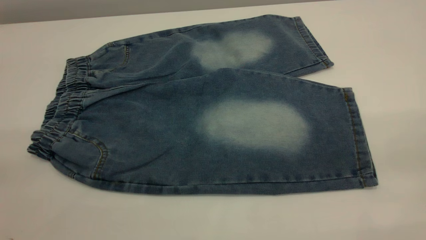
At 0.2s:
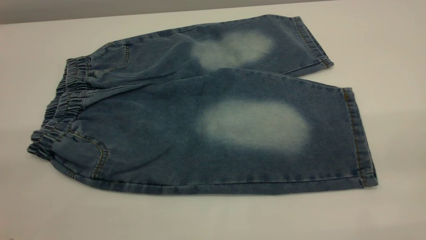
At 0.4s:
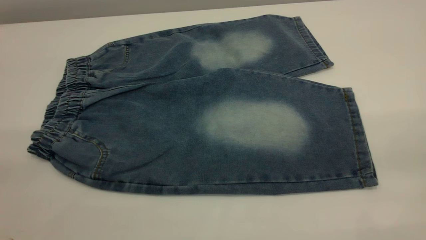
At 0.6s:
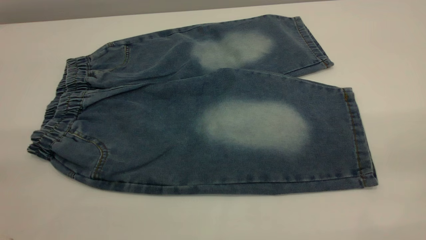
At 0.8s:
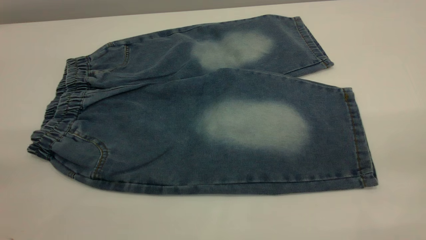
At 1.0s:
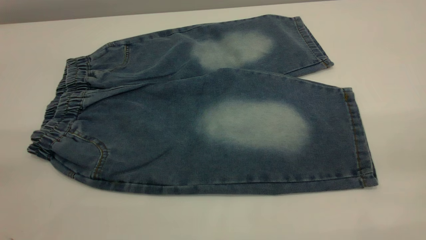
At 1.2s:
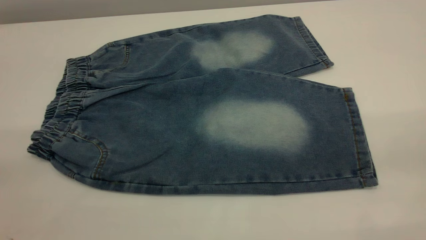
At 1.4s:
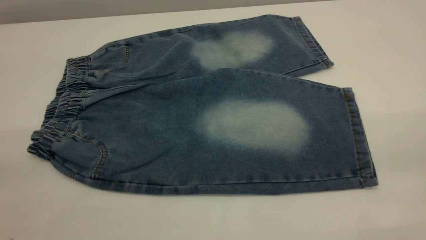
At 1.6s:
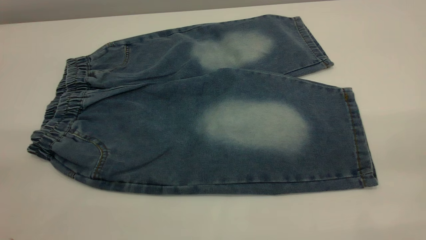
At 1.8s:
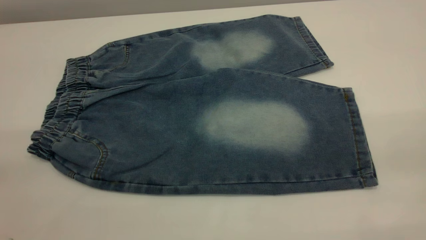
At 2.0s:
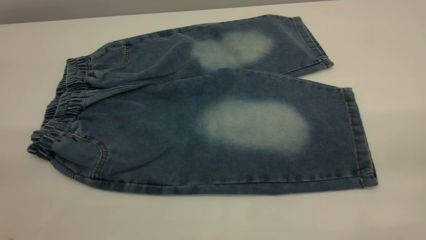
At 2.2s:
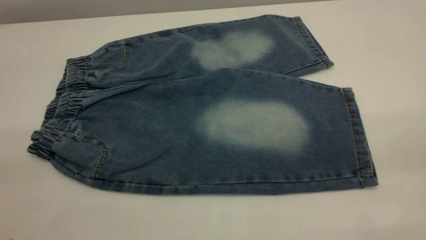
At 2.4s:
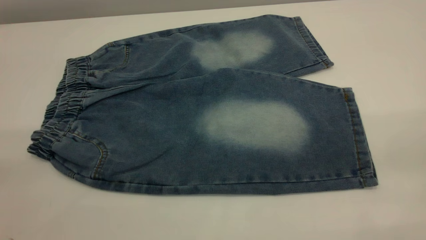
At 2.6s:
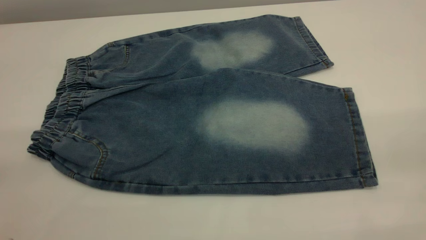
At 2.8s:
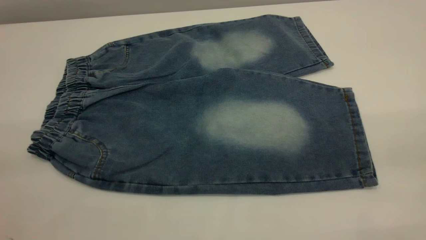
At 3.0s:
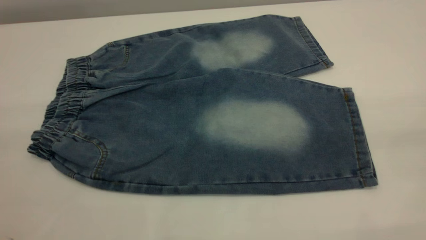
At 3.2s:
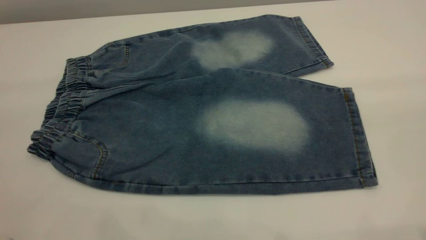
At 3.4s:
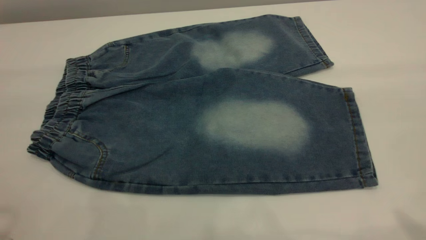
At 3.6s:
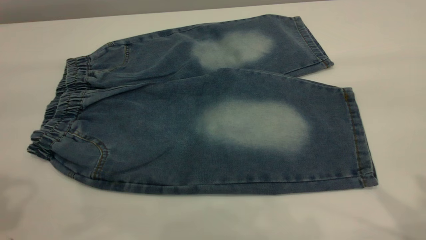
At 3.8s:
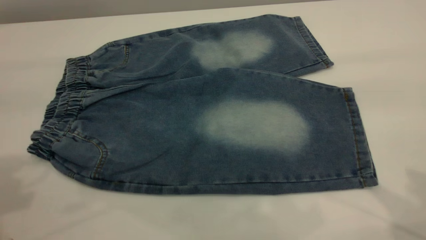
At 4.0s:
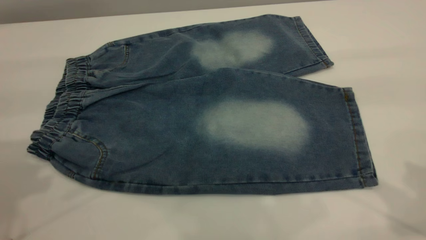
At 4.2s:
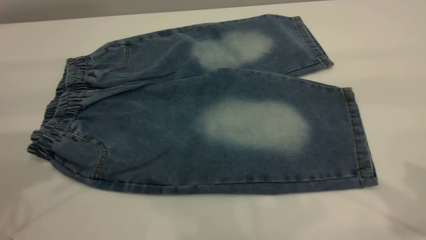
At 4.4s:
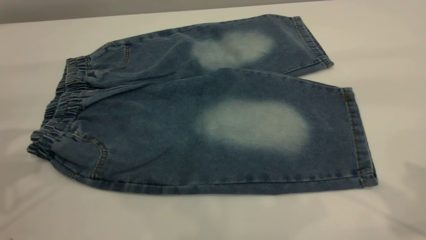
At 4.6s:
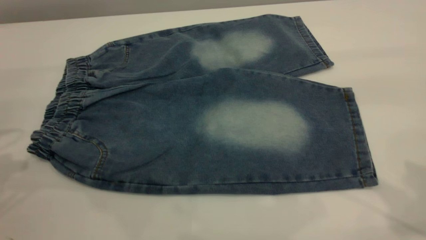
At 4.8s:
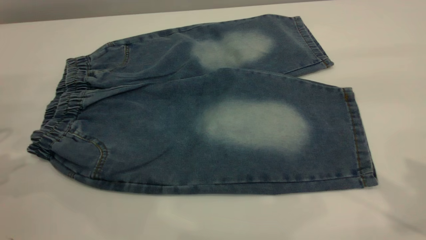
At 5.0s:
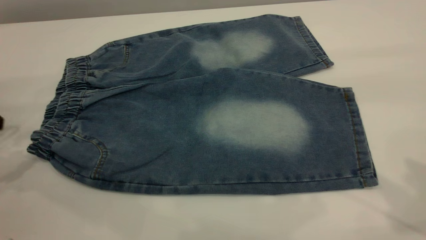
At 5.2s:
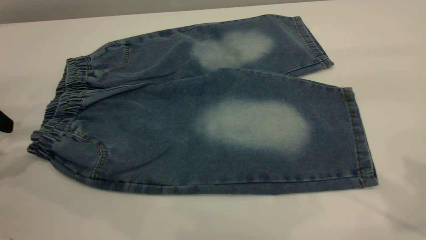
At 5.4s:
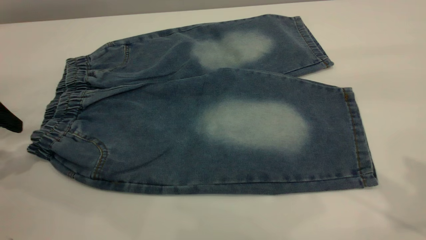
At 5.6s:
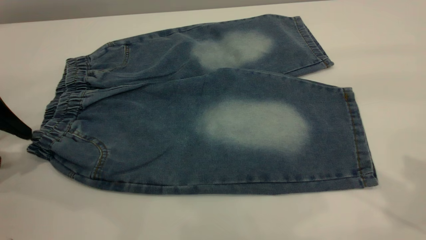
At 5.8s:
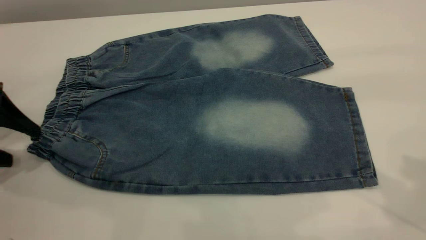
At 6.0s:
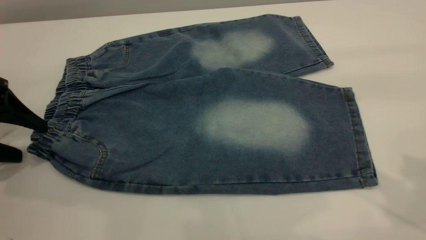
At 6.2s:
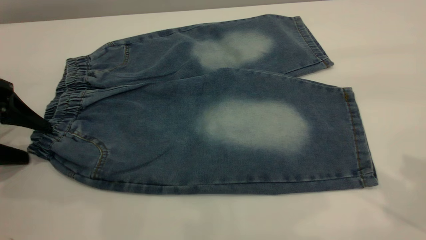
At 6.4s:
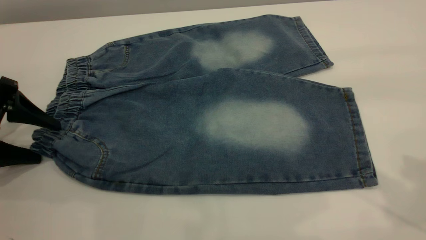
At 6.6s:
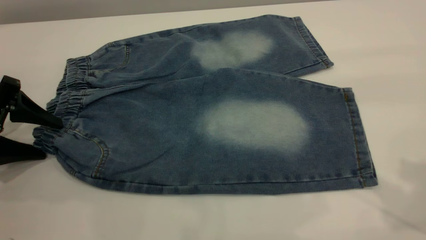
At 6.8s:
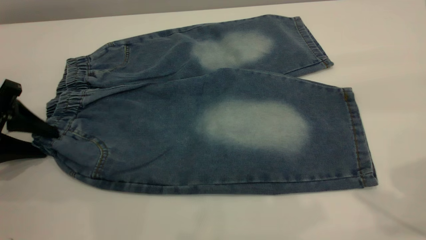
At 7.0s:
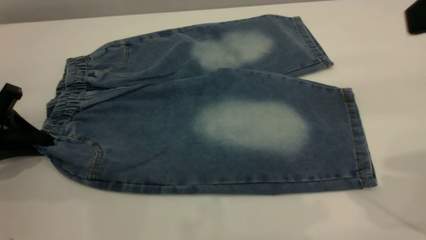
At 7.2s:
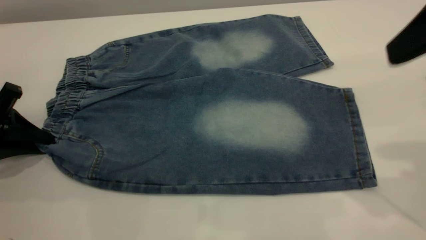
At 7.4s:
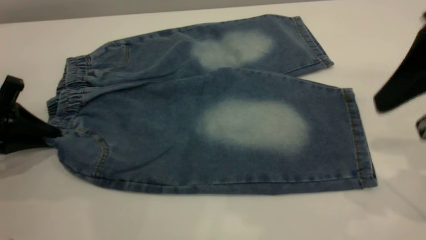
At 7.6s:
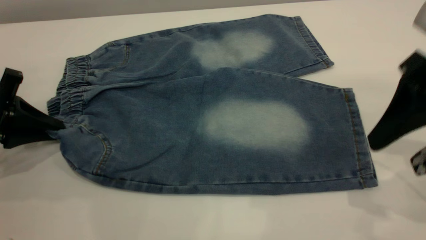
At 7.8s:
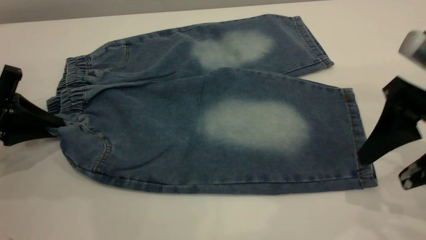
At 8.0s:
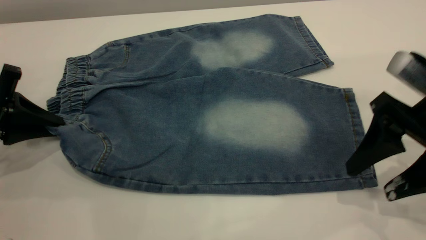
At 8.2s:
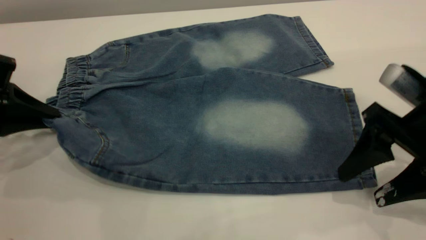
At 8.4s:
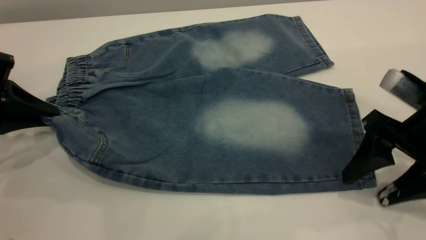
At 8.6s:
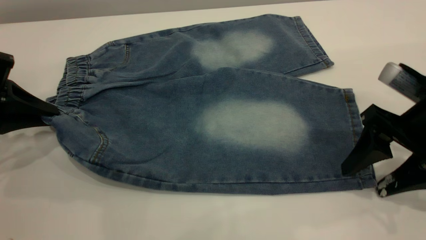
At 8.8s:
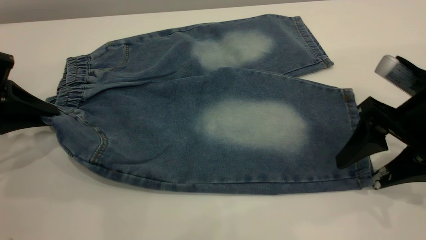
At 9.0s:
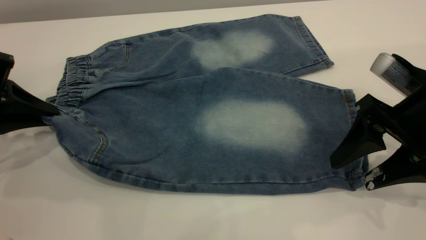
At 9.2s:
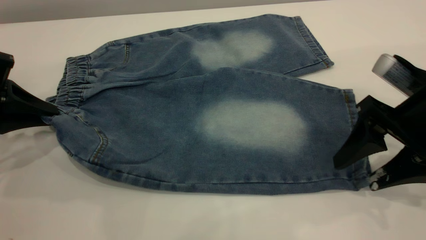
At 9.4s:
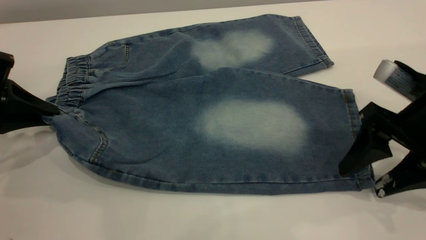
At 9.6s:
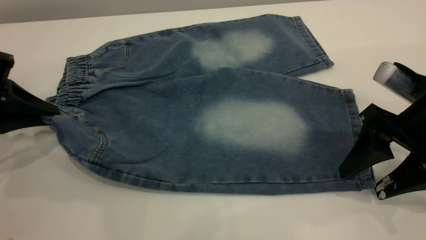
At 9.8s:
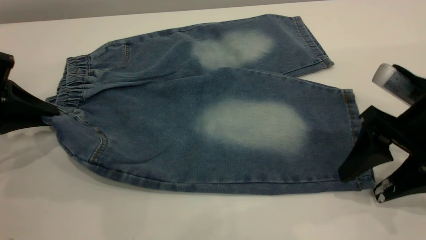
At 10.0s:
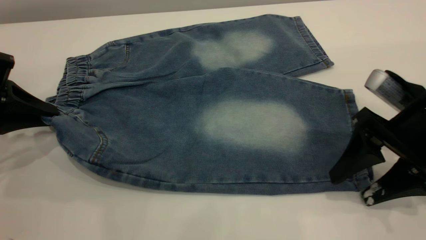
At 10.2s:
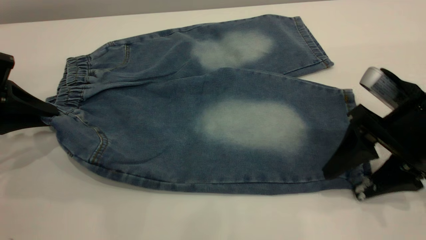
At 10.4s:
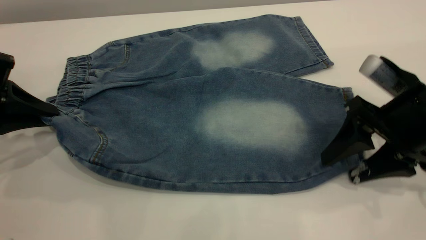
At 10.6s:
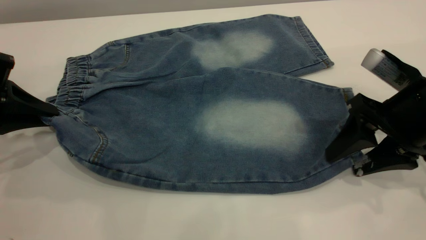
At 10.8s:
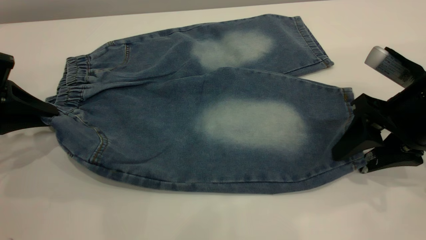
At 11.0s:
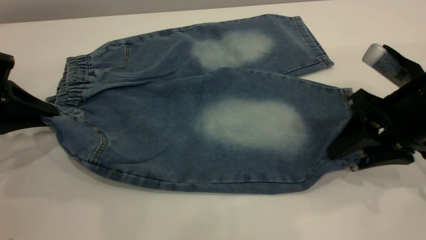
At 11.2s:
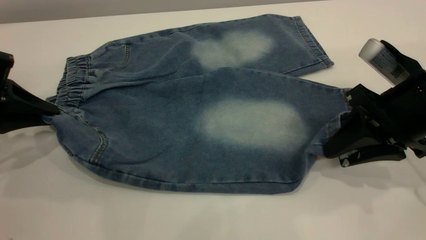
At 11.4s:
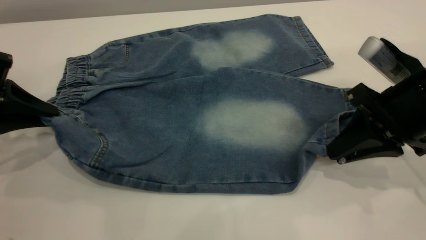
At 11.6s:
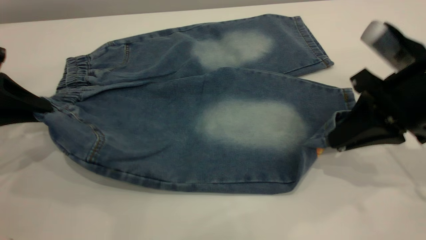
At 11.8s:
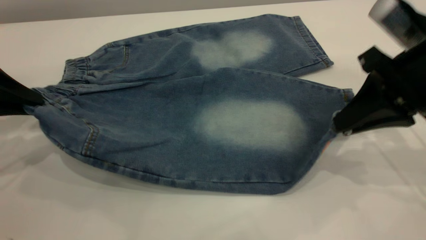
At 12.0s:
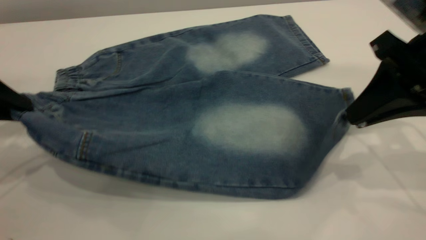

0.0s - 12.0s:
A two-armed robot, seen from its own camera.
0.0s - 1.6s: Both grippers stay about where they are.
4.4s - 6.0s: The left gripper heads downward, covering roughly 15 cm.
6.0s - 7.6s: The right gripper moves downward, about 15 cm. Meanwhile the left gripper closes up.
7.6s - 9.0s: The right gripper shifts about 5 cm downward.
9.0s - 10.4s: The grippers move only a little.
10.4s - 12.0s: The right gripper shifts approximately 10 cm upward, and closes; the left gripper heads upward, covering roughly 5 cm.

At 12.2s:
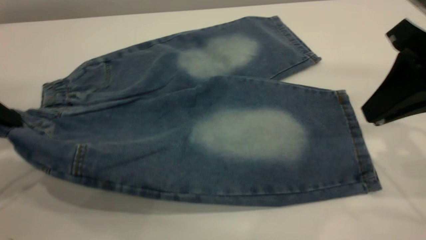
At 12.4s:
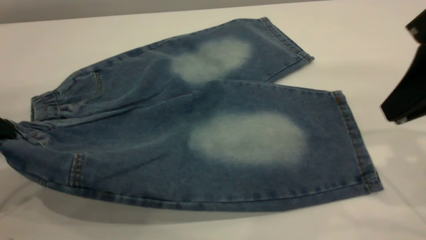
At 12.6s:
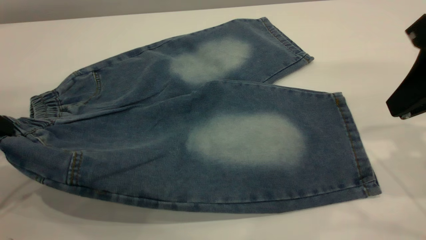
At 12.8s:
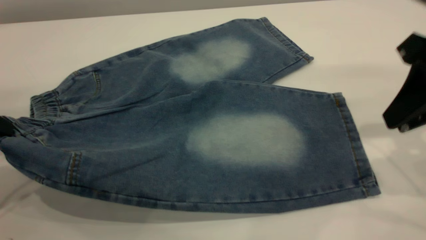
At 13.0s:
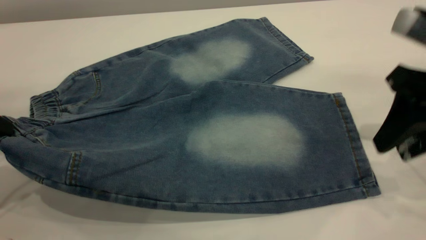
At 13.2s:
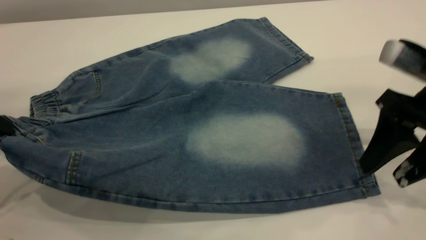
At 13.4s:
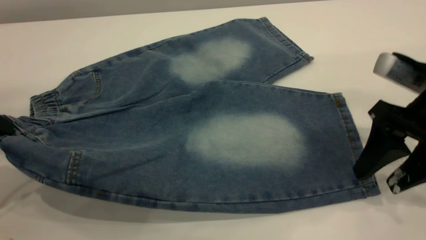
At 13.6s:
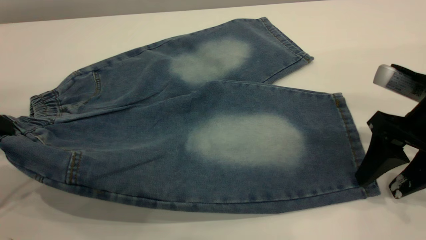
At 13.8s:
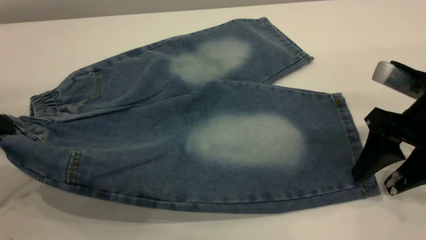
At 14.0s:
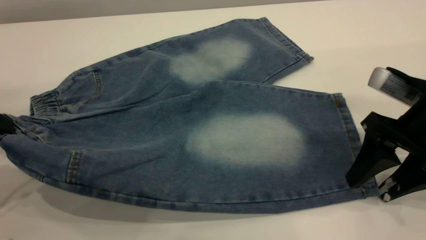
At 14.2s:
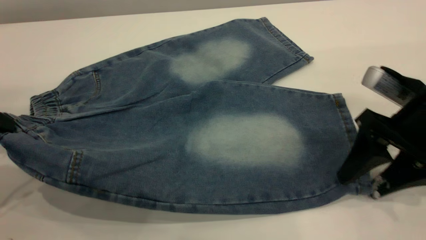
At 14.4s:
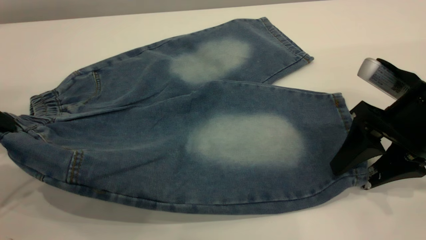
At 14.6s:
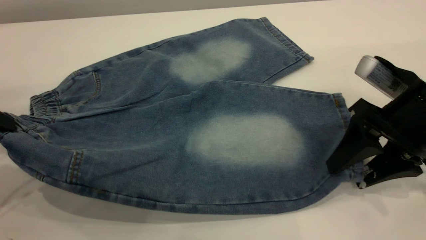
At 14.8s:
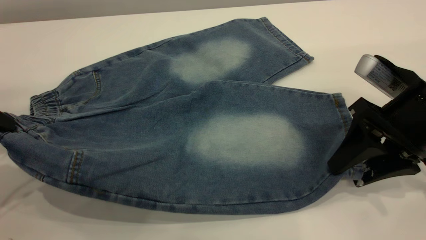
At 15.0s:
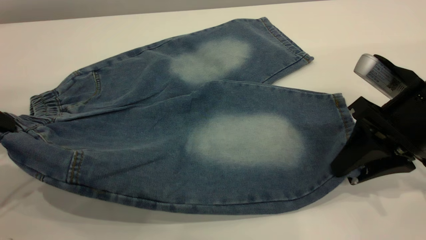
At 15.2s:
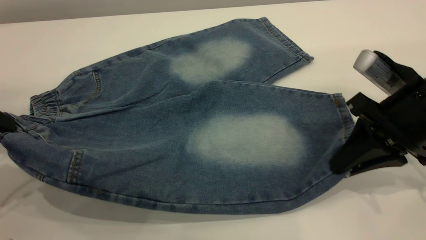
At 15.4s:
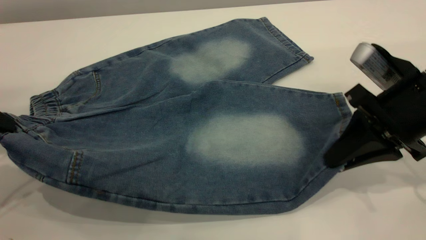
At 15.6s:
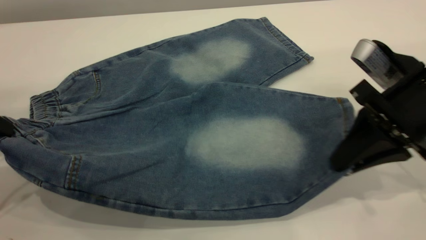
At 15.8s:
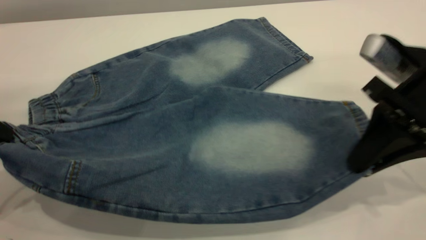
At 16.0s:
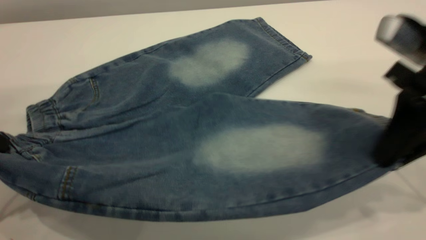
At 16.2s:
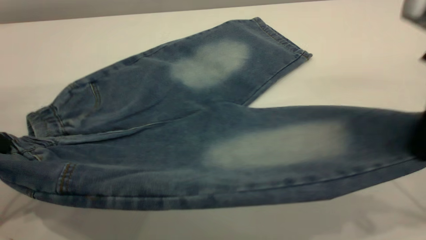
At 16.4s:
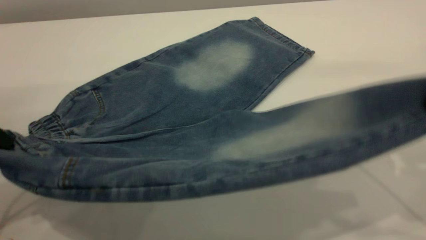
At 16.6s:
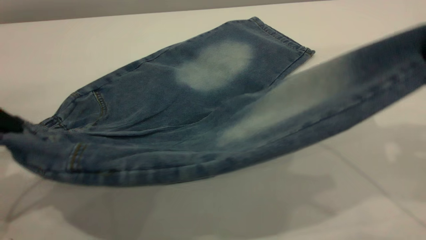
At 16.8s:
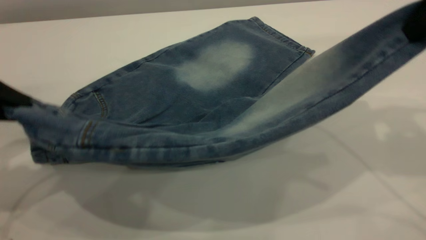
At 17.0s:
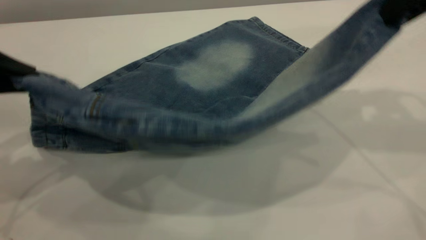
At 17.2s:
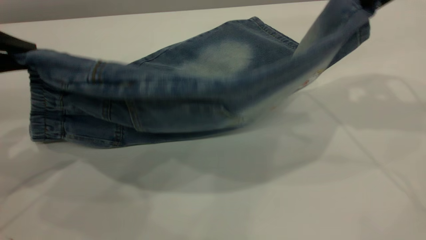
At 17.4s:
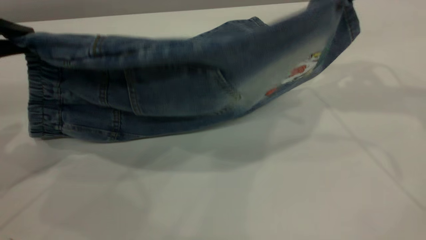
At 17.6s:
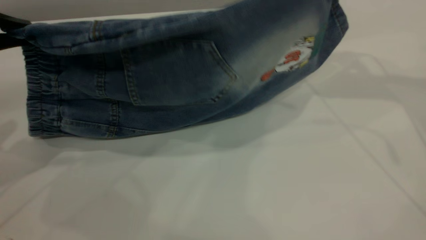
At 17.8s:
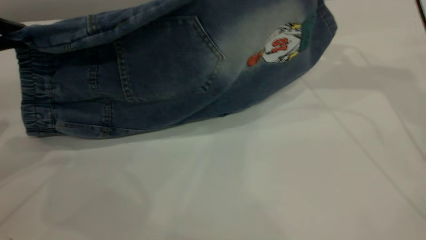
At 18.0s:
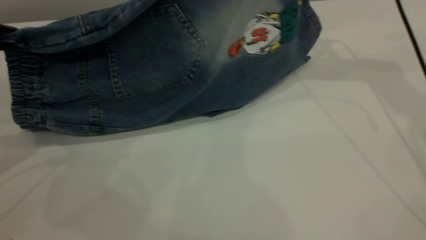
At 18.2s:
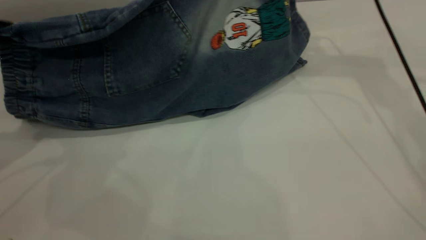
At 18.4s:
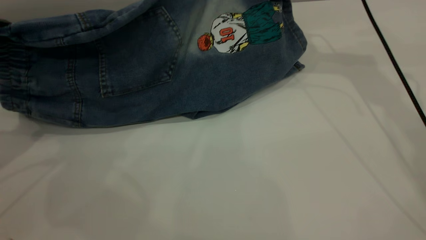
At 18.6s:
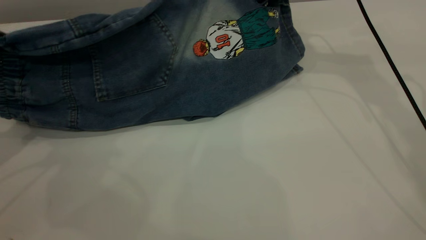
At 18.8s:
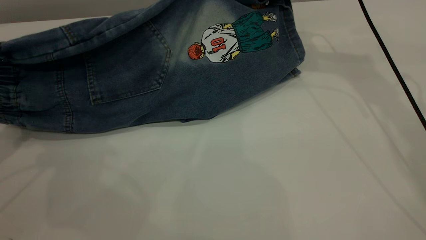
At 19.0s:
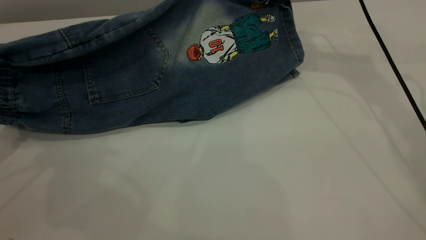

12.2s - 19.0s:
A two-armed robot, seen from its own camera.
12.2s - 13.6s: The right gripper is displaced downward by roughly 10 cm, and opens its fingers.
13.6s - 15.0s: The right gripper closes its fingers.
15.0s - 16.2s: The right gripper travels upward by roughly 10 cm.
16.2s - 17.6s: The left gripper shifts by about 5 cm. Meanwhile the right gripper travels forward by some 20 cm.
17.6s - 19.0s: The right gripper is displaced forward, to the left and downward by approximately 10 cm.
